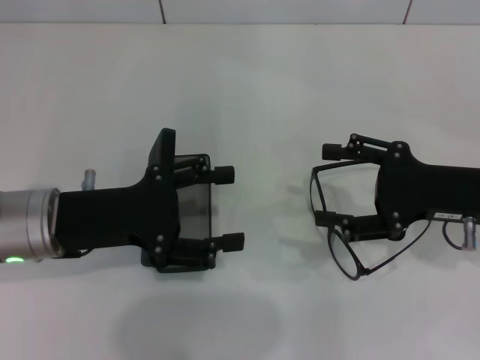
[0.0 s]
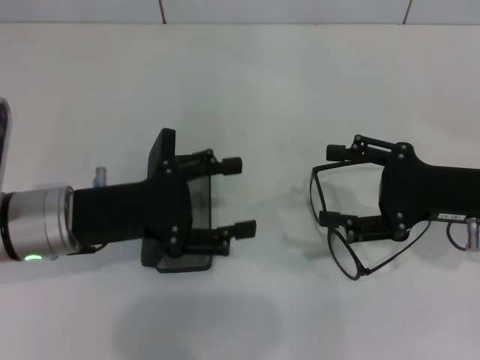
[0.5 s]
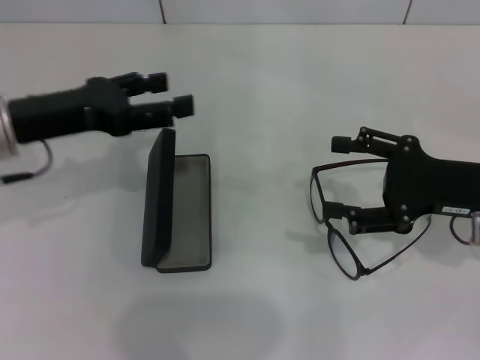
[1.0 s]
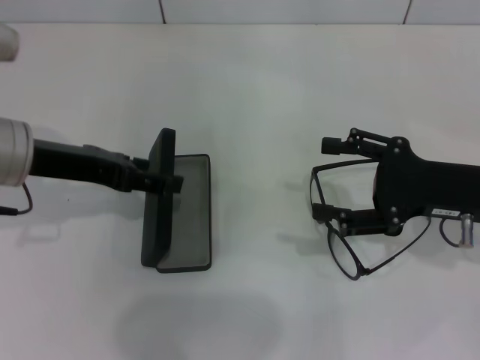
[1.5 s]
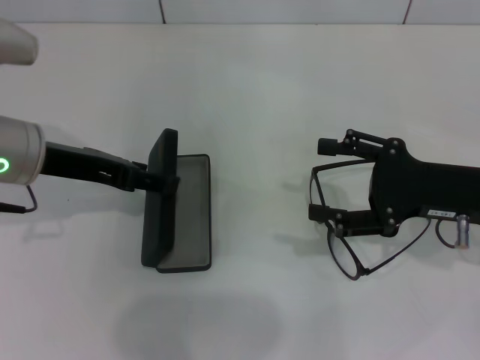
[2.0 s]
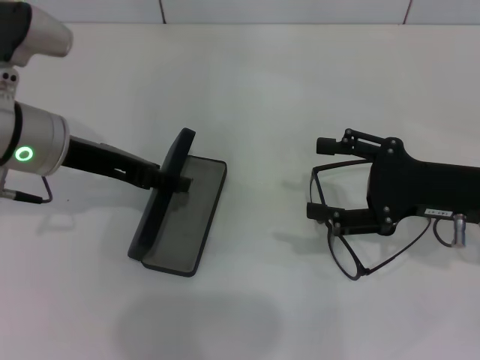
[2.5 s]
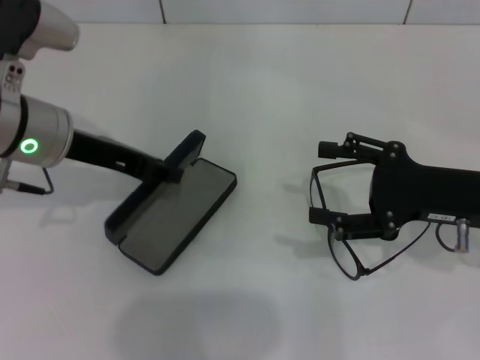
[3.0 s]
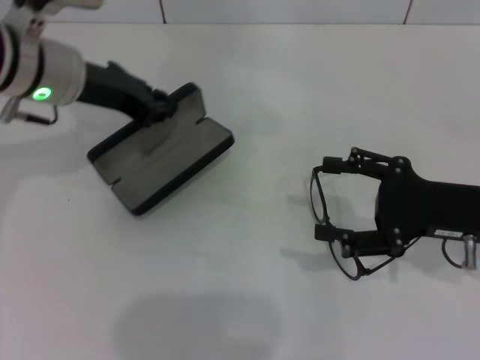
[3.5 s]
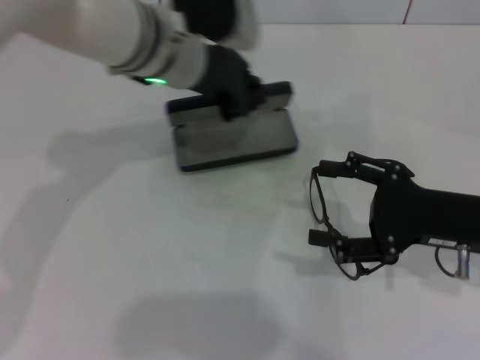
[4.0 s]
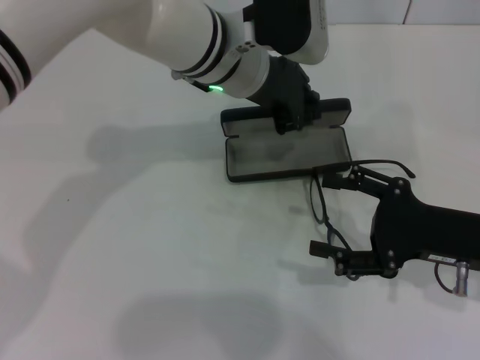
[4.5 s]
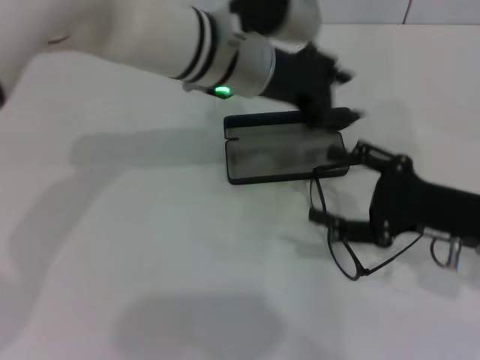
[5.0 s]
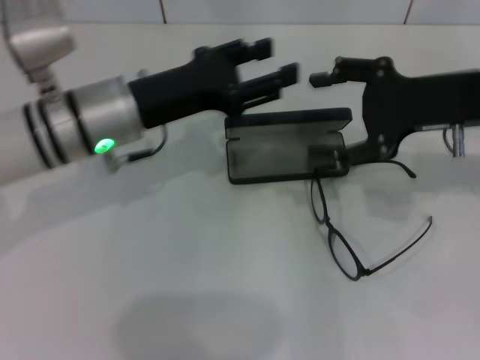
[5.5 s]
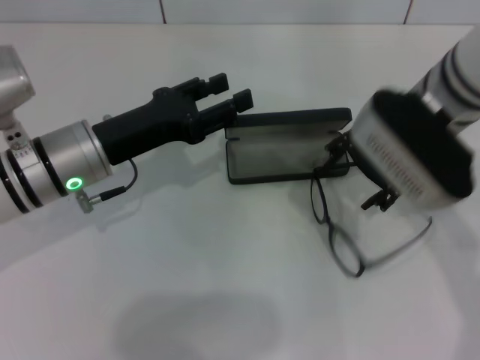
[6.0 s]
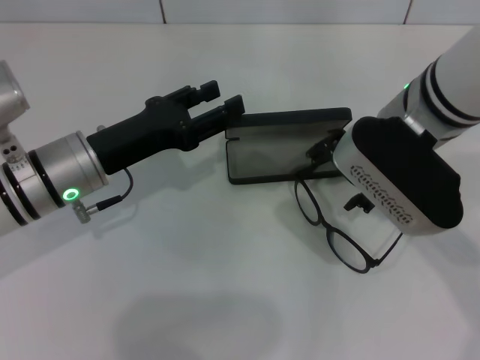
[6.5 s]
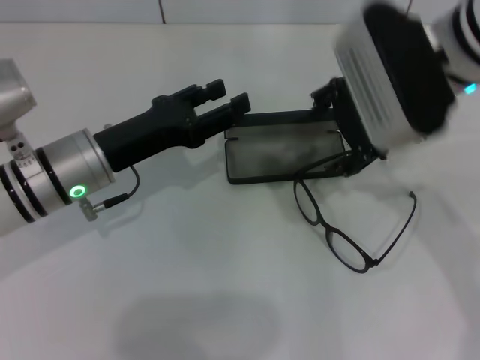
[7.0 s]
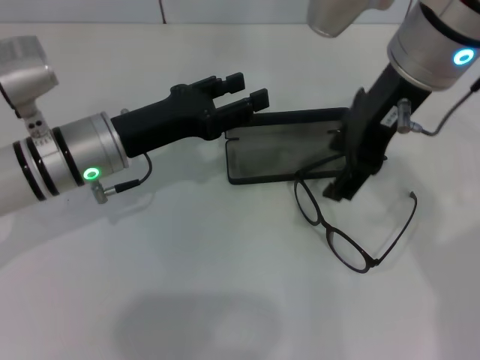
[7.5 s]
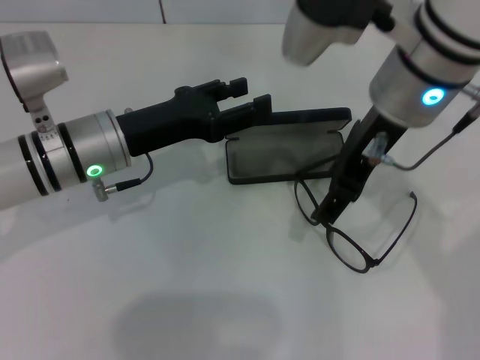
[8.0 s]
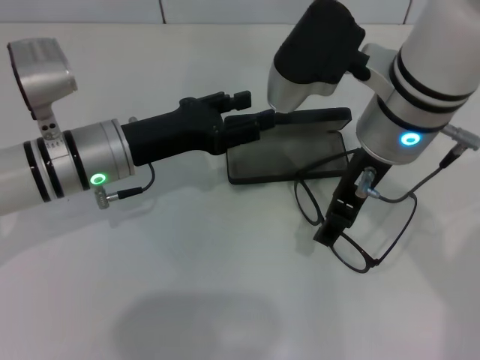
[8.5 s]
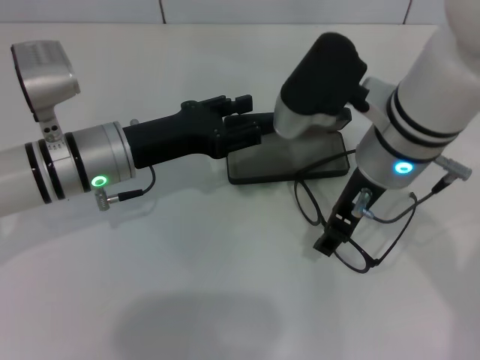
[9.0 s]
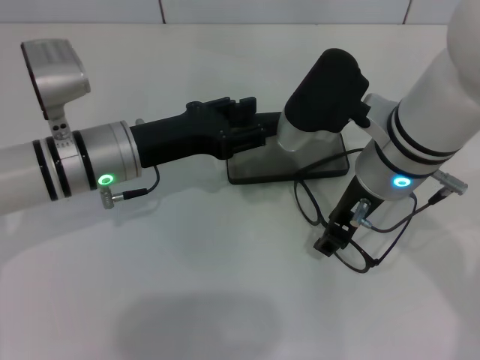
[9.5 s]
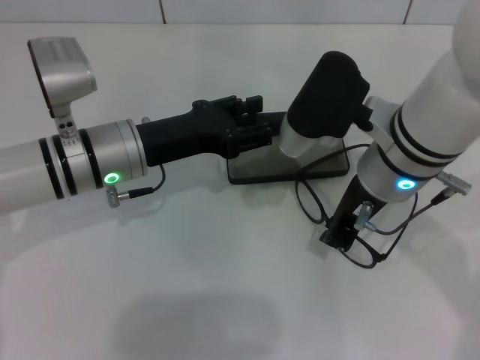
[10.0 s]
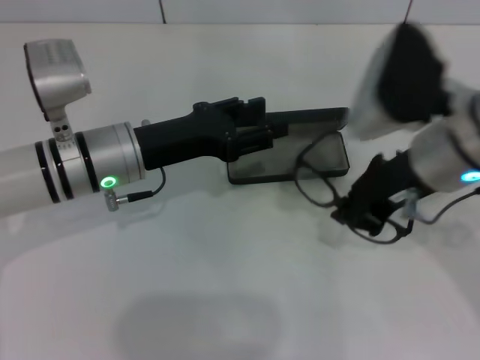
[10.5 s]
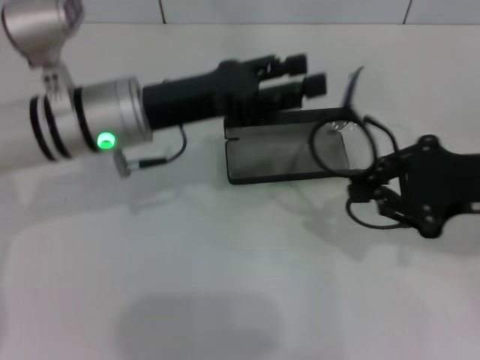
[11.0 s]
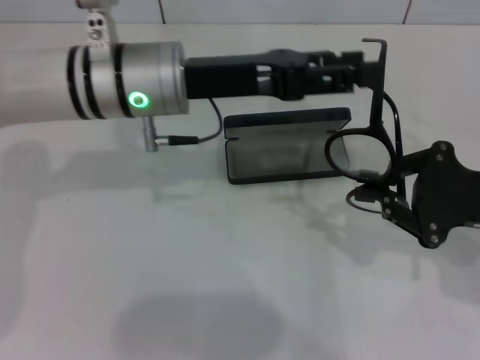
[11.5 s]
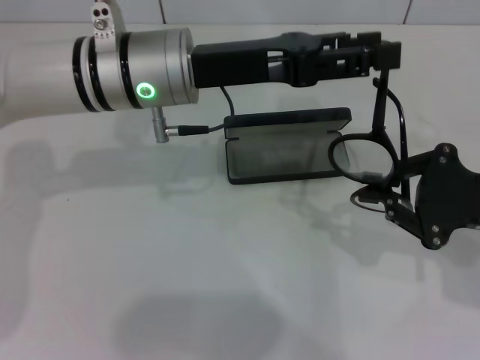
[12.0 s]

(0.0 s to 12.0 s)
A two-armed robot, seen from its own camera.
Step, 0.0 s - 3.0 s: Grab the glasses case with your left hand.
Step, 3.5 s - 4.5 s: Place the glasses case in the center of the table with your left hand.
Step, 5.0 s - 9.5 s: Grab the eyeglass frame with your right hand.
0.0 s - 2.0 s: The left gripper goes some 5 cm forward and upward.
2.0 s - 4.0 s: The left gripper goes approximately 15 cm to the right and forward, and closes its fingers.
4.0 s - 6.0 s: The left gripper moves to the left, downward and backward, some 15 cm, and opens its fingers; the right gripper is displaced to the left, upward and forward by roughly 15 cm.
6.0 s - 8.0 s: The right gripper is displaced upward by some 5 cm.
8.0 s - 10.0 s: The right gripper shifts some 10 cm downward, and closes up.
10.0 s - 12.0 s: The left gripper goes about 10 cm upward and to the right. Meanwhile the right gripper travels to the right by about 20 cm.

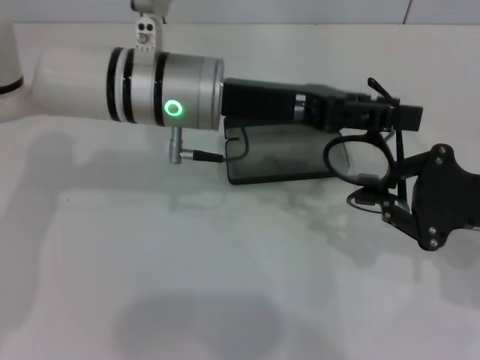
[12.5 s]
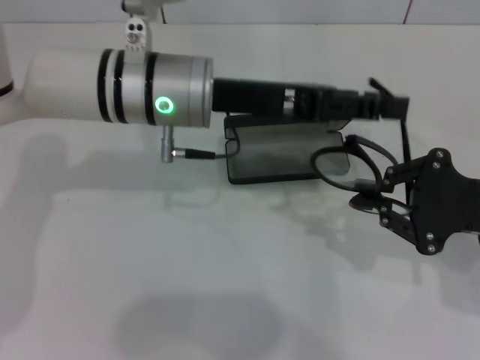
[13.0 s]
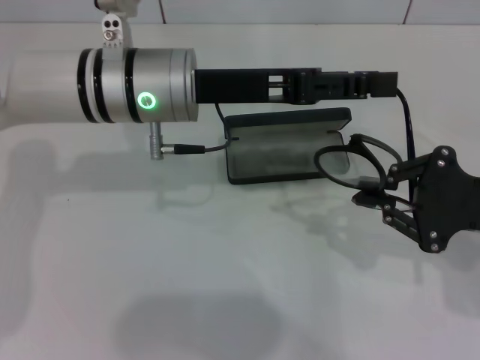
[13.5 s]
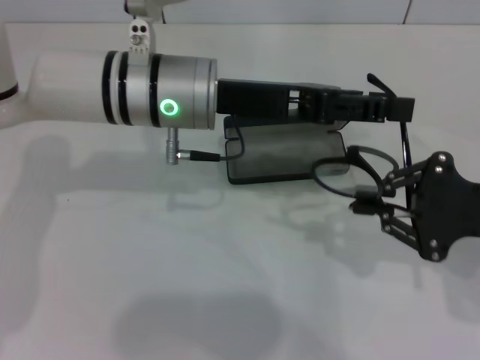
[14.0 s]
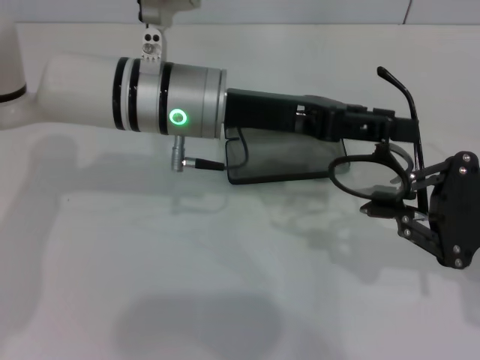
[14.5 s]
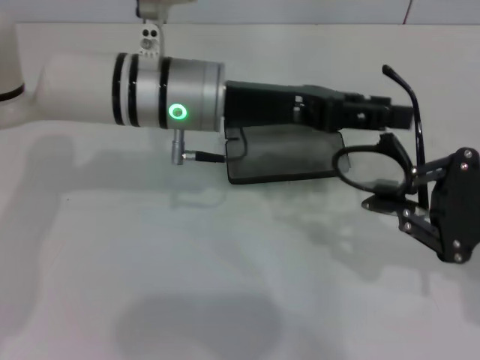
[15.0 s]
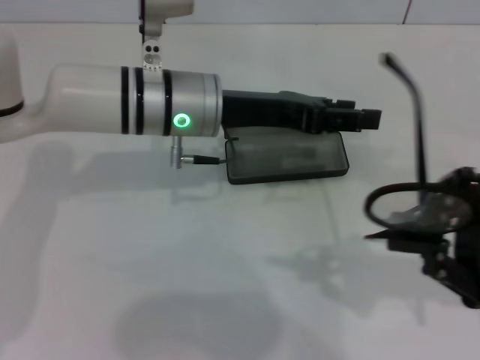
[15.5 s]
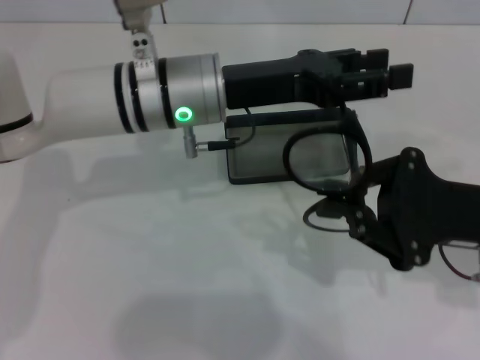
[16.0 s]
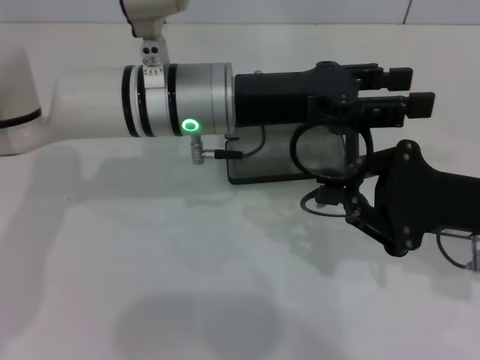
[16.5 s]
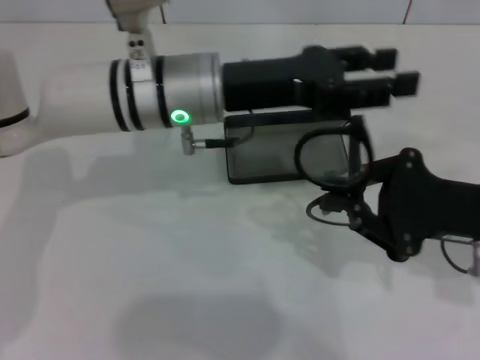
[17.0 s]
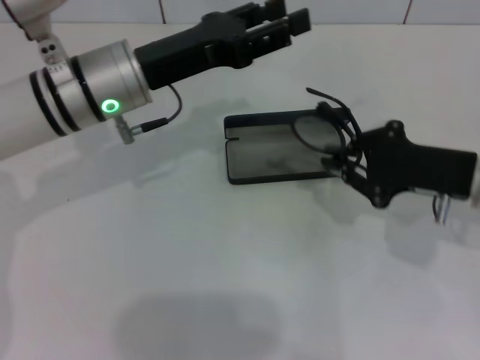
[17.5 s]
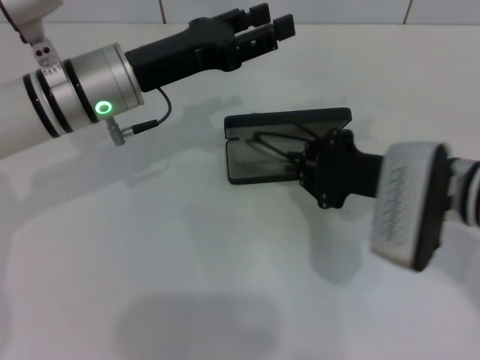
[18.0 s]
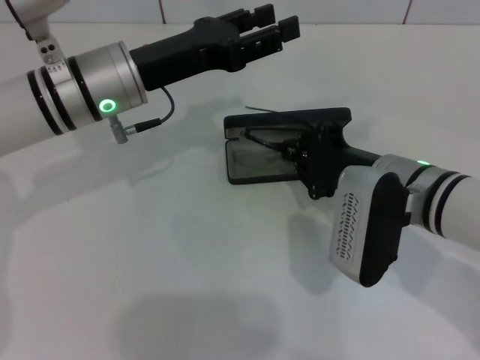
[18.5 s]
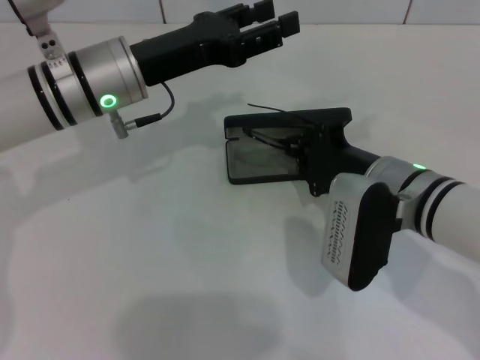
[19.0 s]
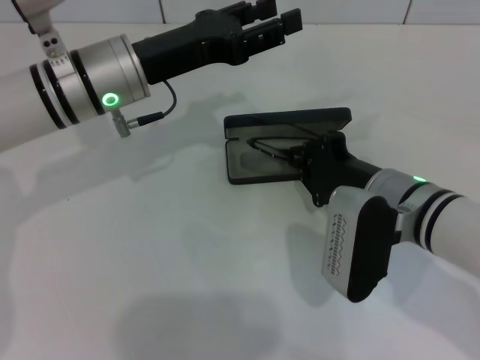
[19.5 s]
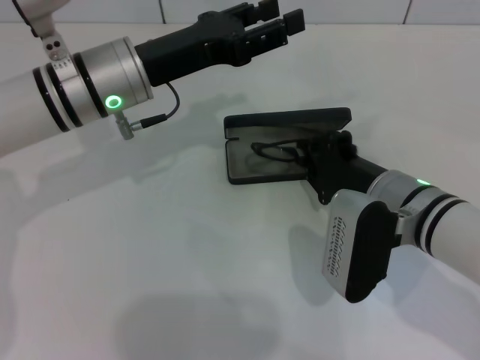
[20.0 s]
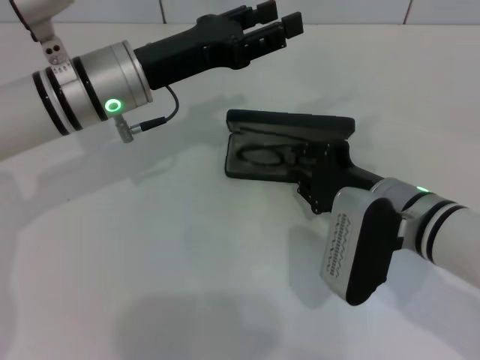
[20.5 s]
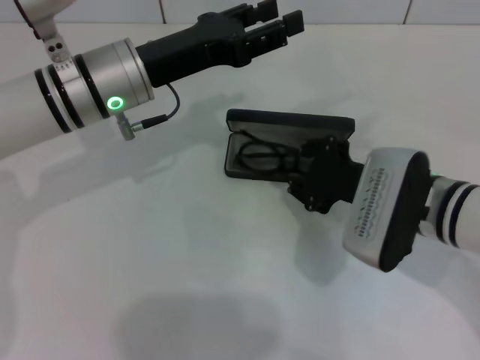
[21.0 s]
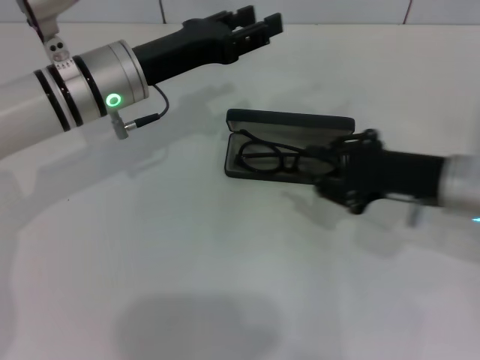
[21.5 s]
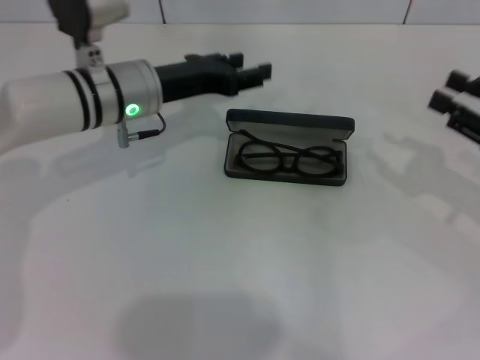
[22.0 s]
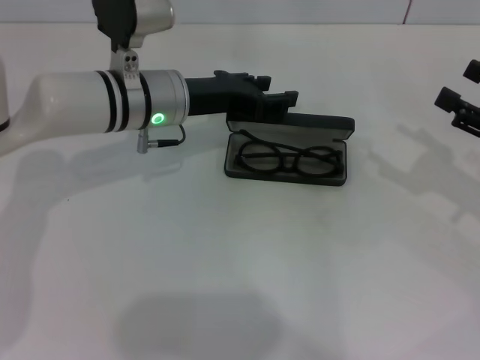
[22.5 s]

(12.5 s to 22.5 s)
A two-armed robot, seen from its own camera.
Step, 12.5 s - 17.0 s: Fold the frame with your left hand.
Step, 17.5 s - 21.0 s: Put the glasses into the case with your right hand.
12.5 s - 14.5 s: The grippers stay close to where they were, moving slightly.
14.5 s - 16.5 s: The right gripper moves approximately 5 cm.
16.5 s - 18.5 s: Both grippers travel together to the left, roughly 10 cm.
18.5 s - 20.5 s: The grippers stay close to where they were, moving slightly.
20.5 s - 22.5 s: The left gripper moves approximately 5 cm; the right gripper goes about 20 cm to the right, and opens up.

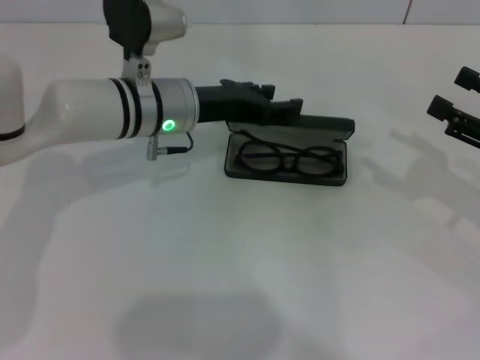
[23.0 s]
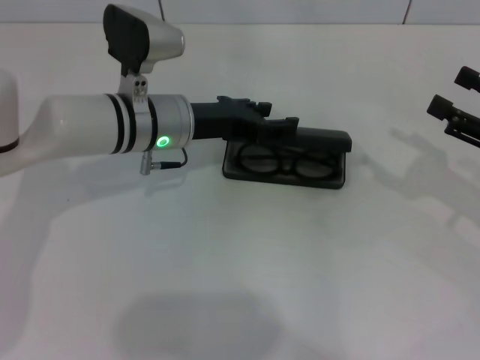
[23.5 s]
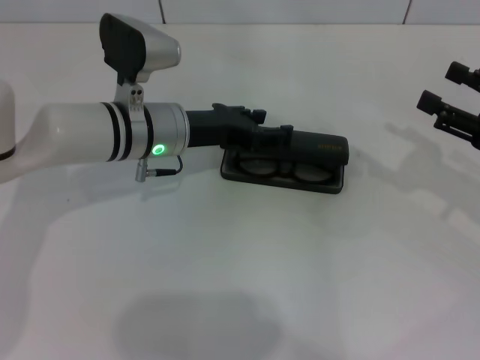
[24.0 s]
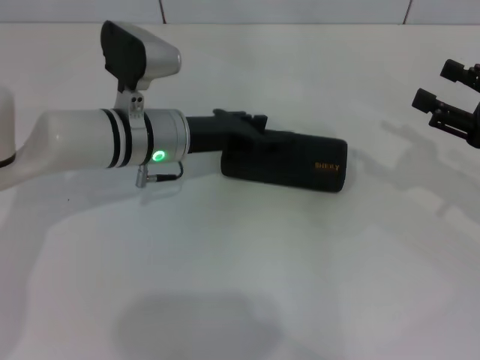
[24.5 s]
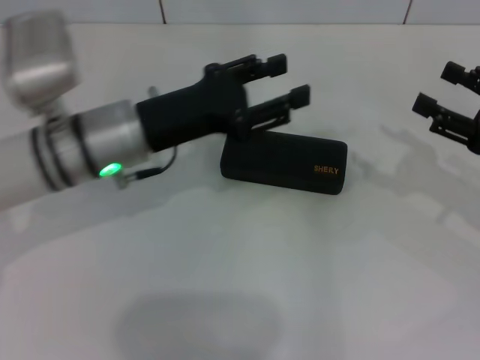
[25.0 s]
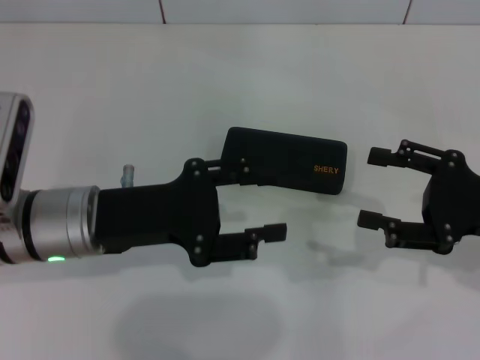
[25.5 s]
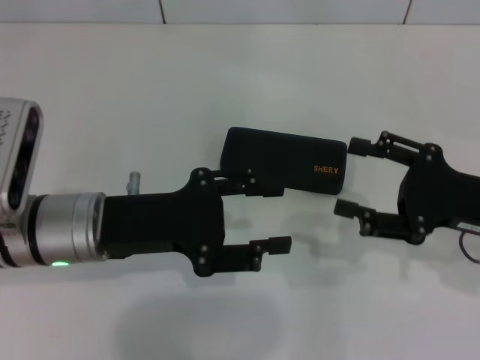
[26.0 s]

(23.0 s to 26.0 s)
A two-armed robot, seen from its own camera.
23.0 s - 24.5 s: The grippers stay close to where they were, moving slightly.
24.5 s - 26.0 s: The left gripper travels backward and to the left by approximately 10 cm, while the right gripper shifts approximately 5 cm to the left.
